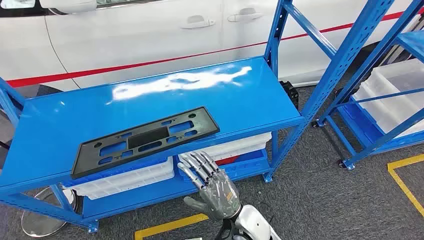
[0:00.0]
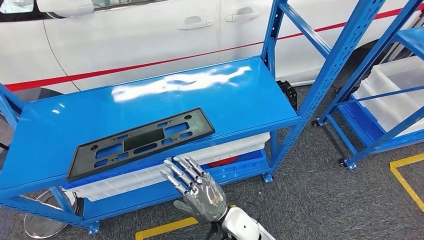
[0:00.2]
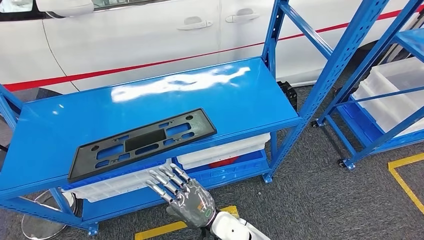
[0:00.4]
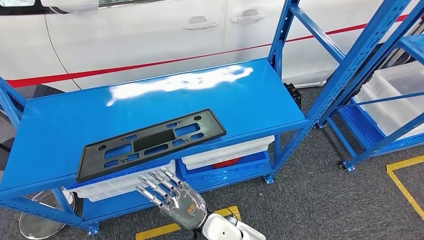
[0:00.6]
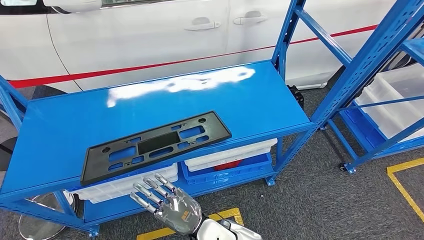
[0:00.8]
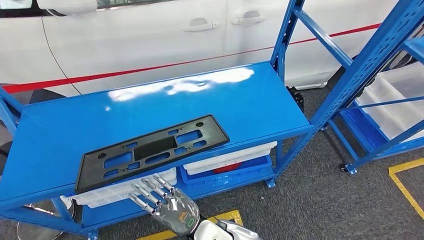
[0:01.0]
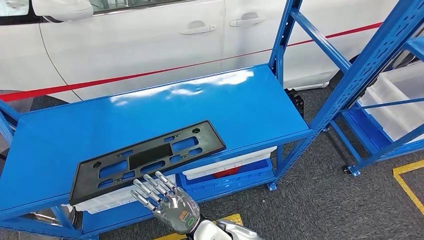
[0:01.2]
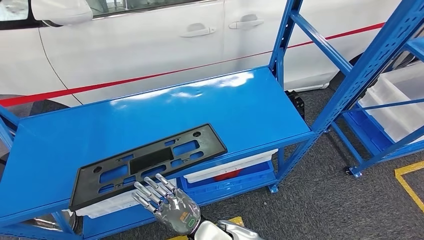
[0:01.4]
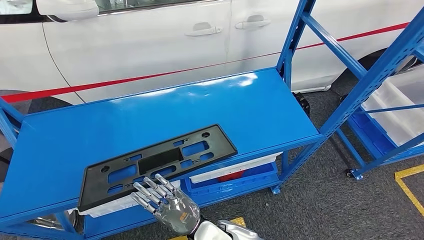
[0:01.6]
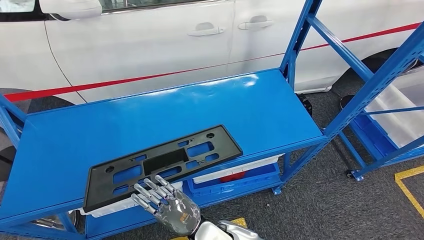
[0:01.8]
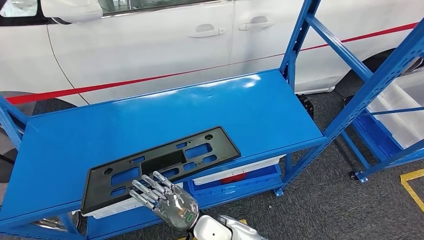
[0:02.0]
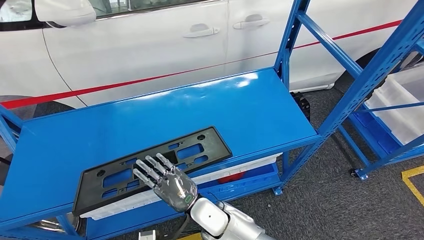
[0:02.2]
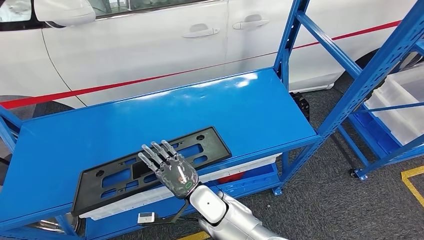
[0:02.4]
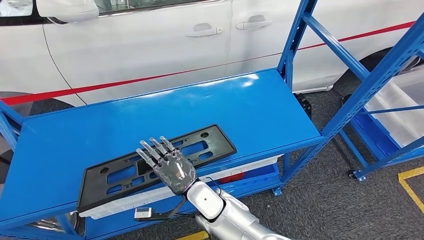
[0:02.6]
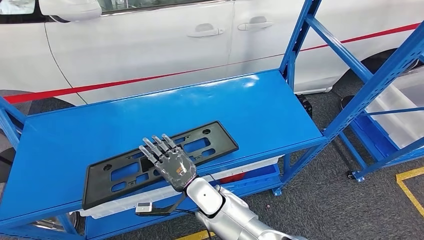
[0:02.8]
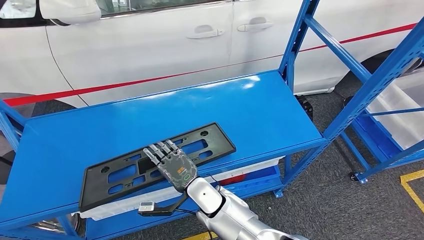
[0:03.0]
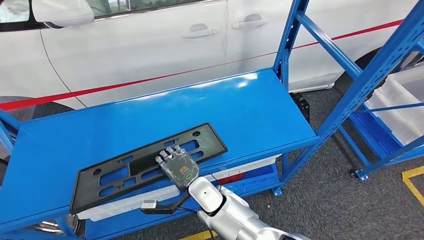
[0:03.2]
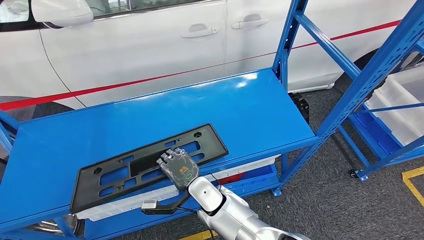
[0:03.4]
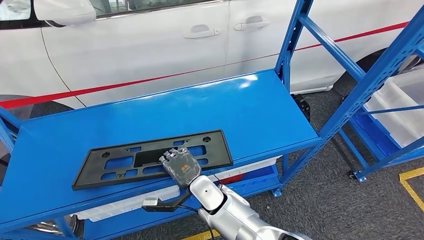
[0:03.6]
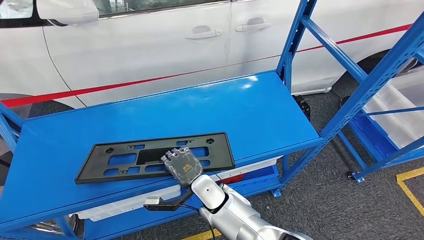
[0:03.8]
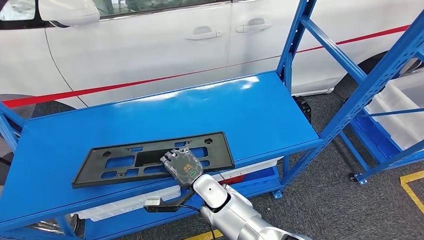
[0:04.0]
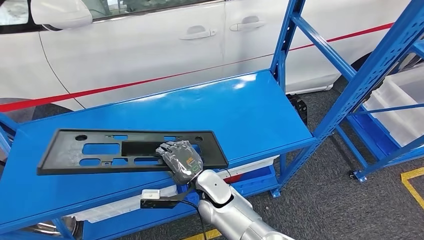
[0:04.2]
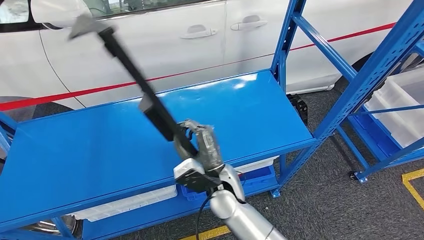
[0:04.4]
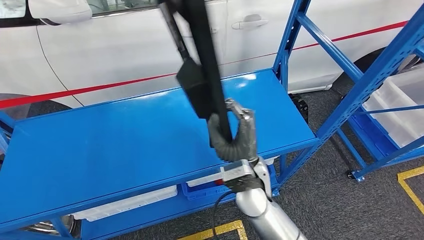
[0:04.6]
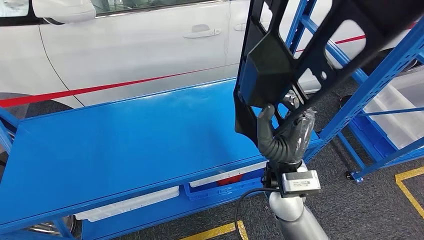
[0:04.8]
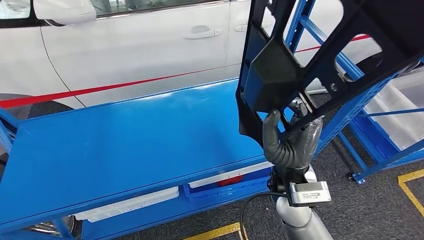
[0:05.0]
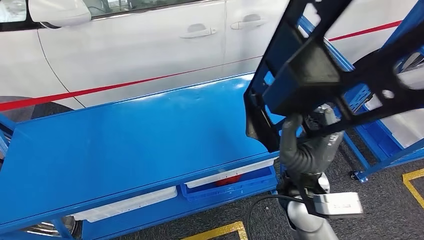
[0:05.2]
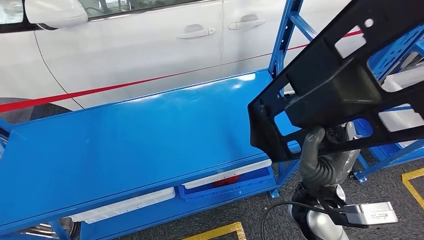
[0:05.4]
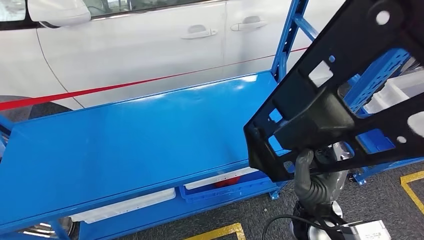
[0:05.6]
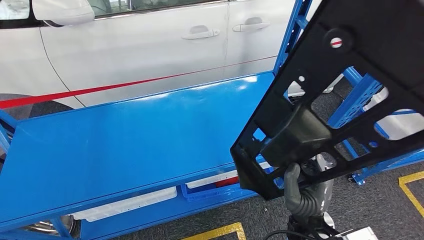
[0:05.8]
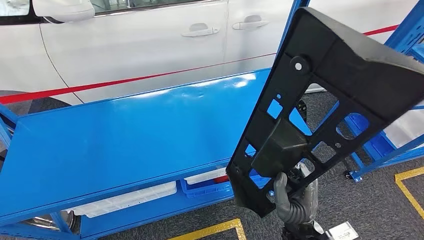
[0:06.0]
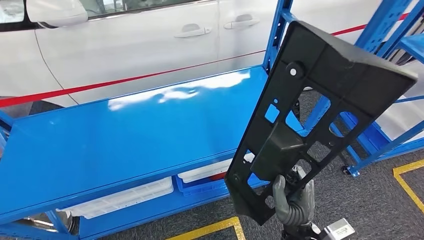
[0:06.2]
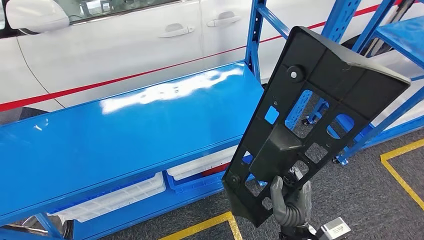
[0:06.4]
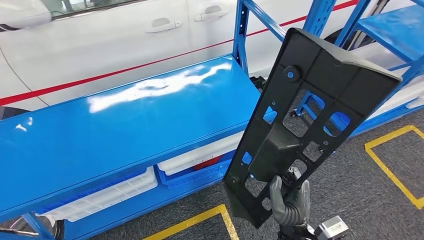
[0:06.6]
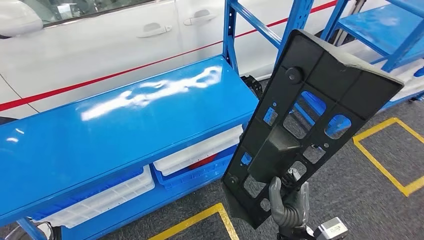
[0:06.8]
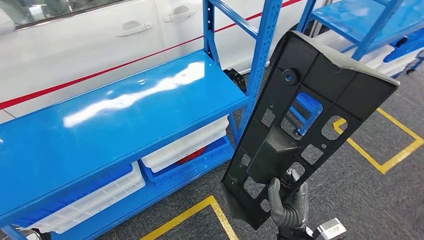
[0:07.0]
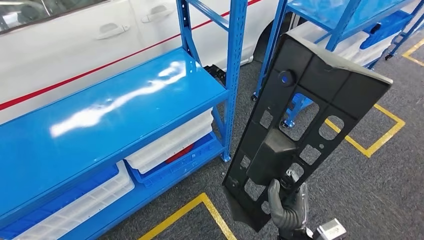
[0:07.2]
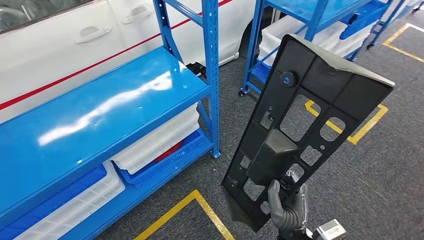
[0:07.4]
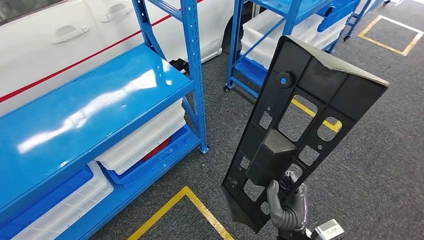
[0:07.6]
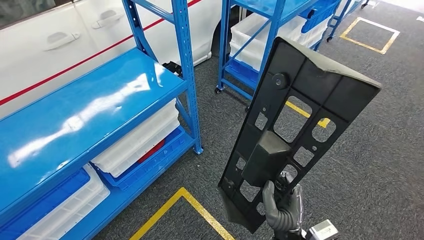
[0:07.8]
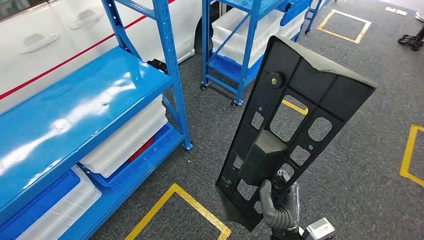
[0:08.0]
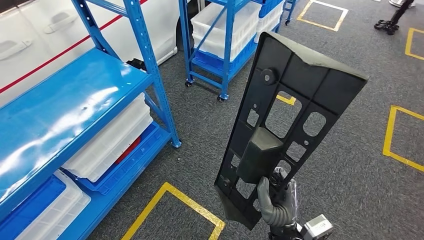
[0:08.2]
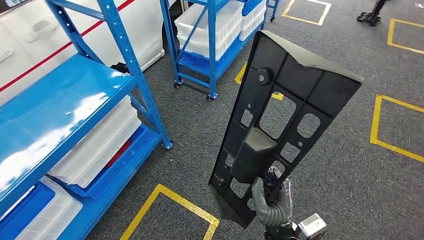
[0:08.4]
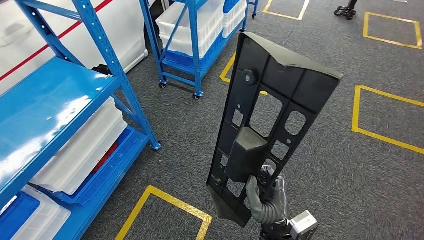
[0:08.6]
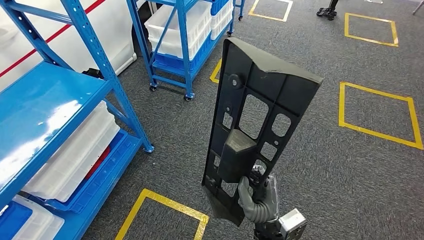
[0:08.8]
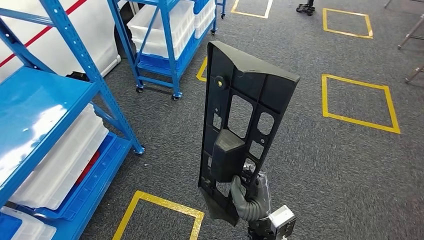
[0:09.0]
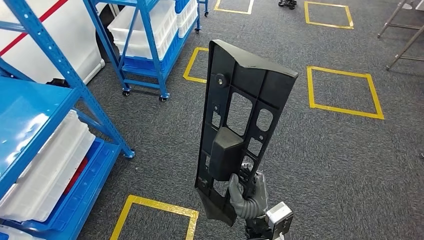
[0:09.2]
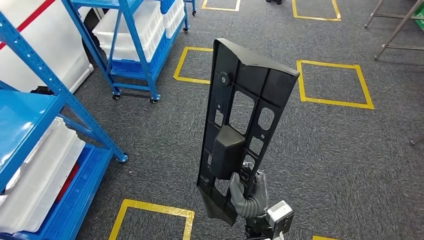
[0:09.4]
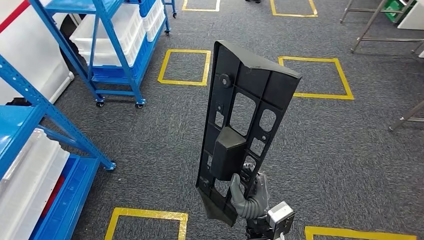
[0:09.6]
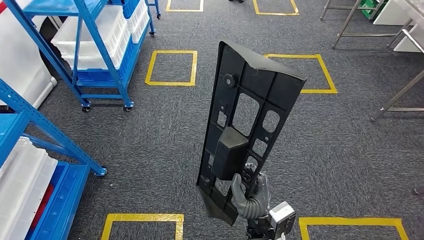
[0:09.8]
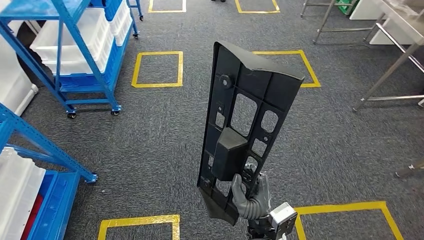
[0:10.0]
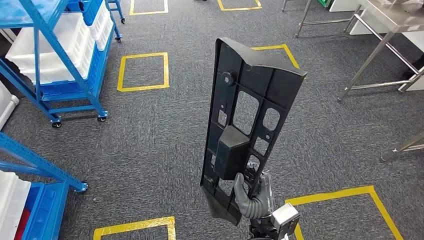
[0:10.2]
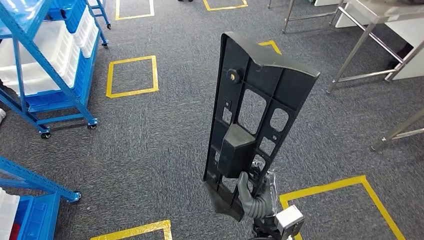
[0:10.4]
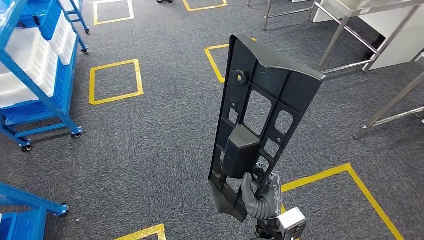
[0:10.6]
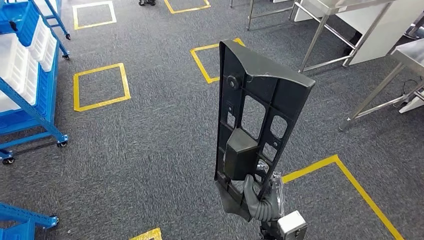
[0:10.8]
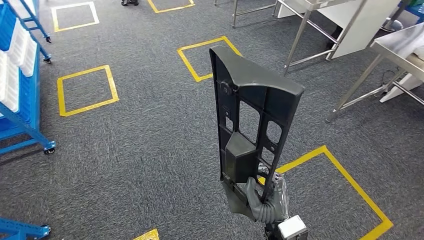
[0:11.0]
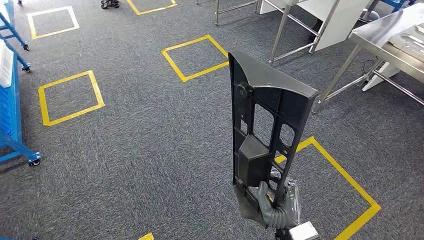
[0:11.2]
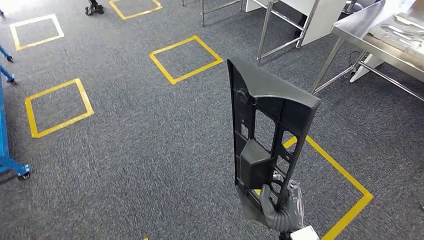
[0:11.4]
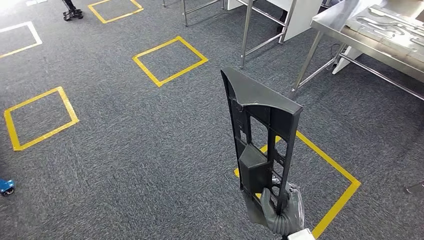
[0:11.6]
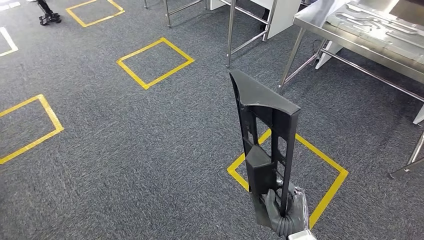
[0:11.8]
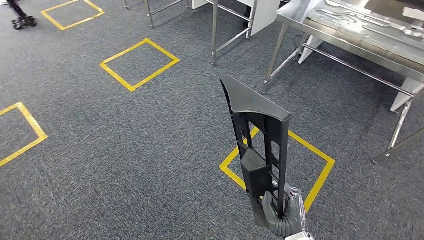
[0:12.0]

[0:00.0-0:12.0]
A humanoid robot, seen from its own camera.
Step, 0:00.0 to 0:05.0: Pick up the large material from the shelf.

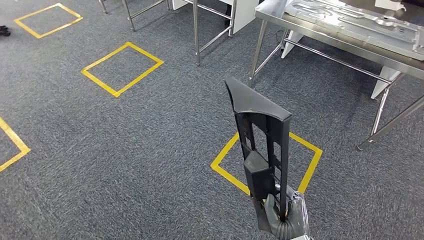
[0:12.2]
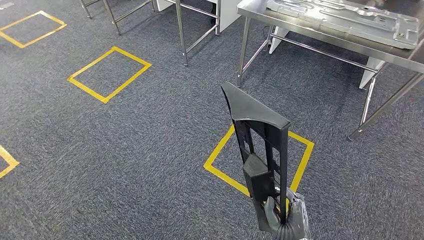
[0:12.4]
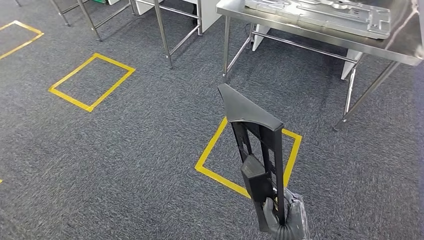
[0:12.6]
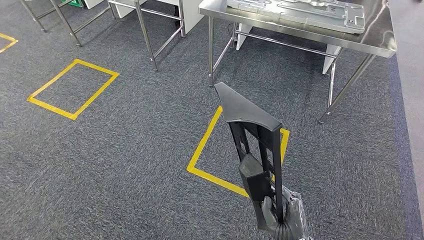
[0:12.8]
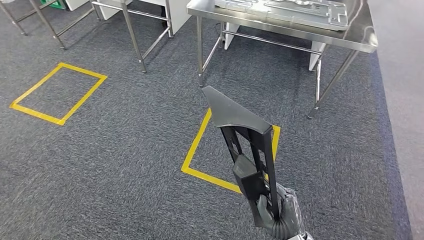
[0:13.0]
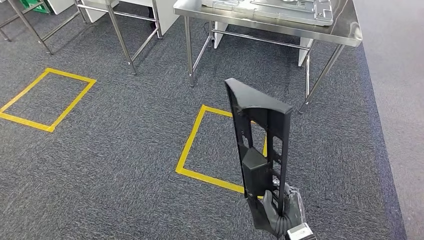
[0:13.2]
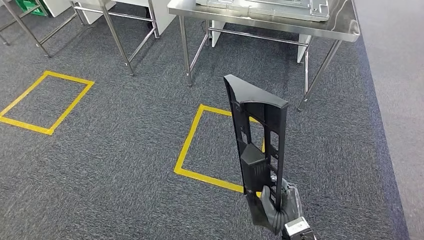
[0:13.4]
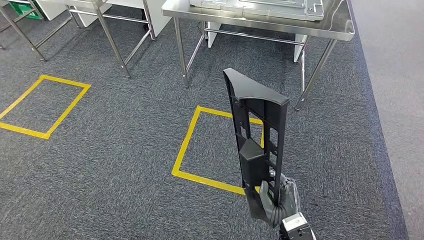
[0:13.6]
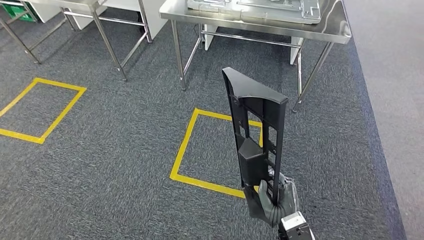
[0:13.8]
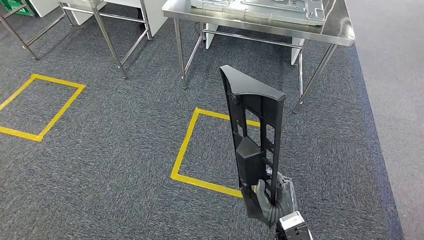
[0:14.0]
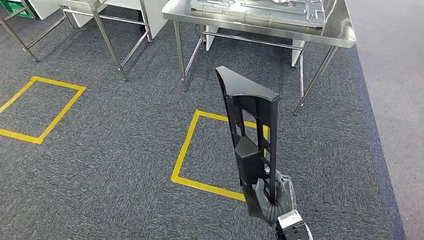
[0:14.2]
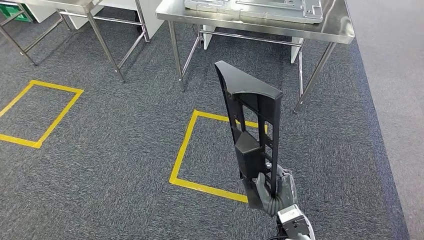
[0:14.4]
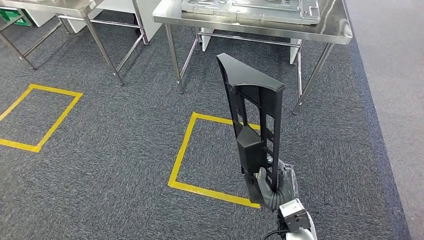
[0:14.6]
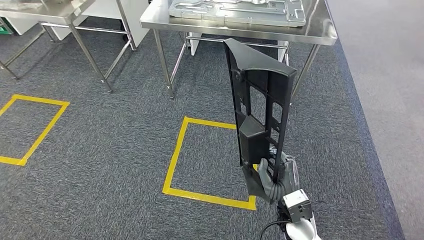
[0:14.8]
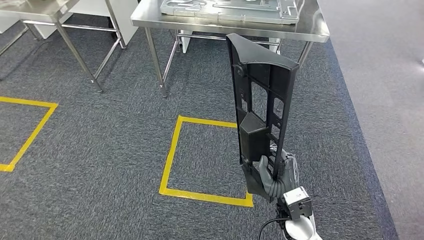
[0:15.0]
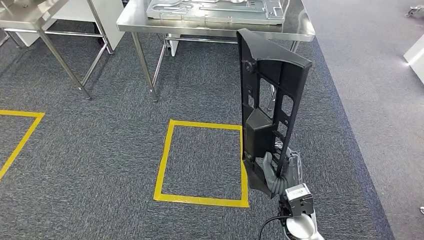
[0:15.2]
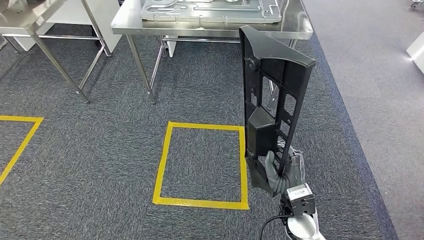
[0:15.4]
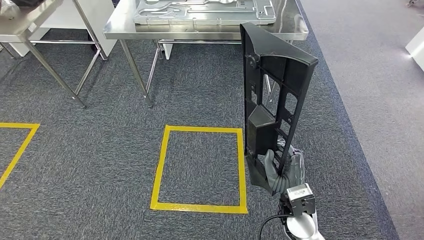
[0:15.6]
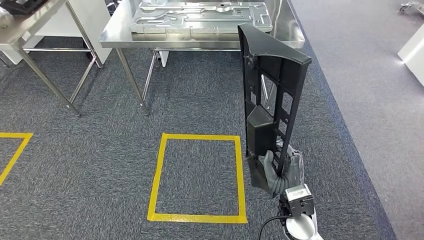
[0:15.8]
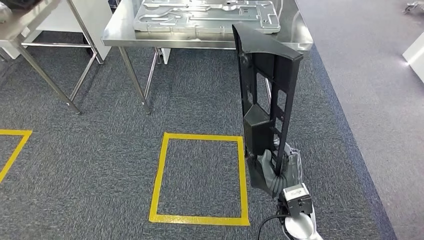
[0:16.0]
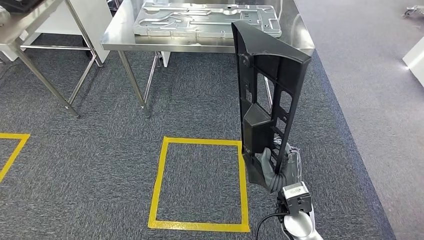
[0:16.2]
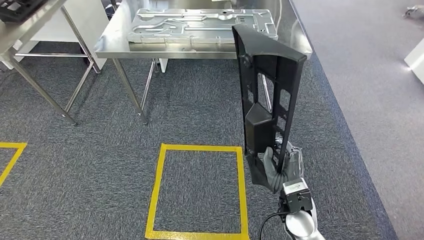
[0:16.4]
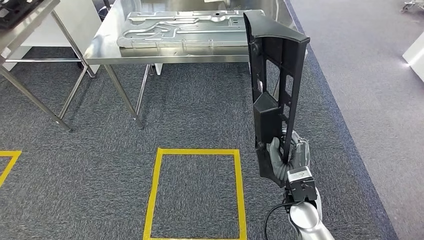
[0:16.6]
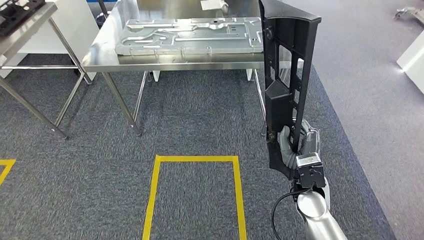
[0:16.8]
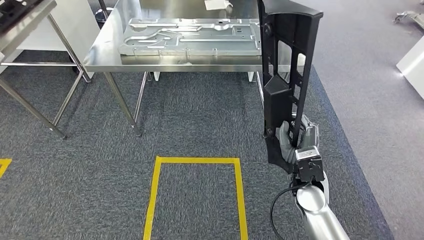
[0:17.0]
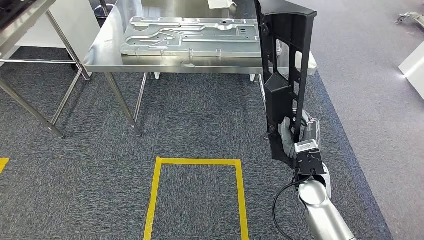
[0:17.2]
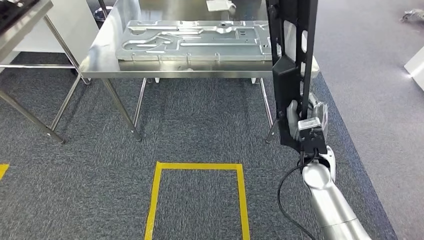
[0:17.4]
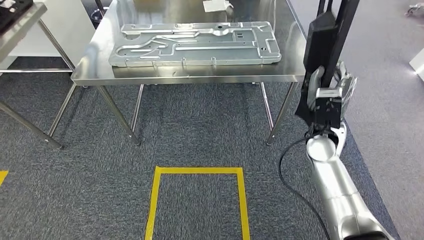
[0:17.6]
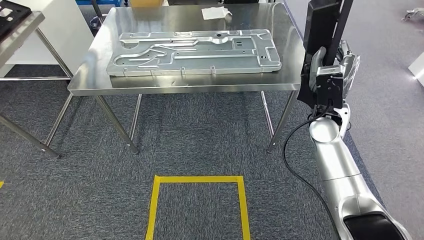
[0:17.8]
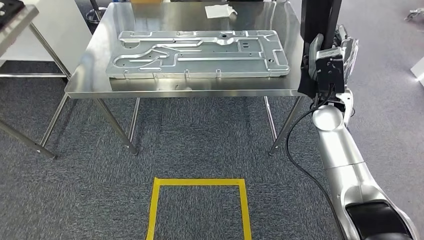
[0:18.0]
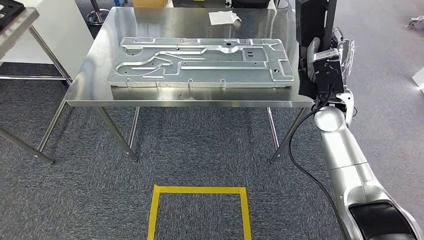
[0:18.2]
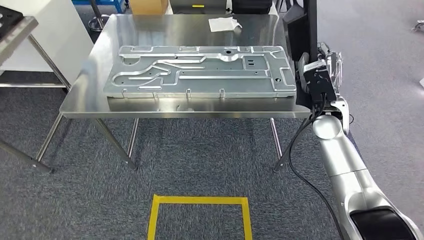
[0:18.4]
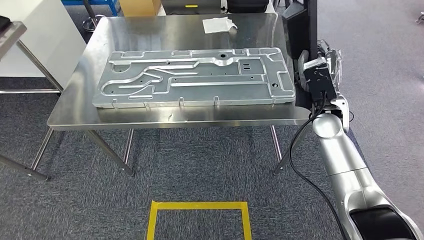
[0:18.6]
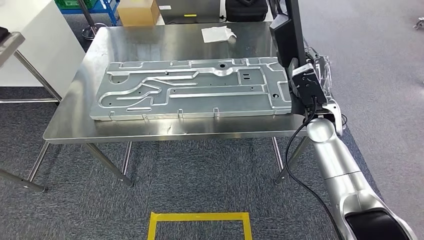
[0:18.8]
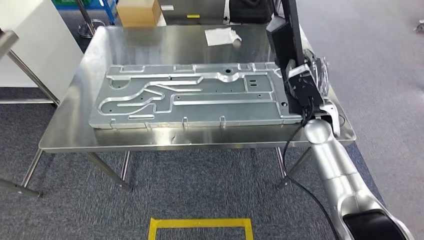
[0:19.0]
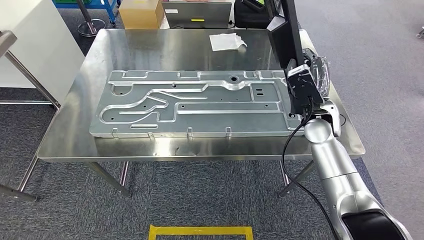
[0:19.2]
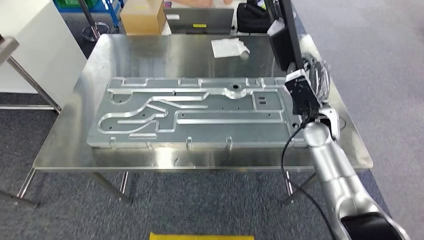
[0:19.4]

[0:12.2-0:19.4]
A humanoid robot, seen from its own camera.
Step, 0:12.2 to 0:18.0: Move the large material to the workbench.
